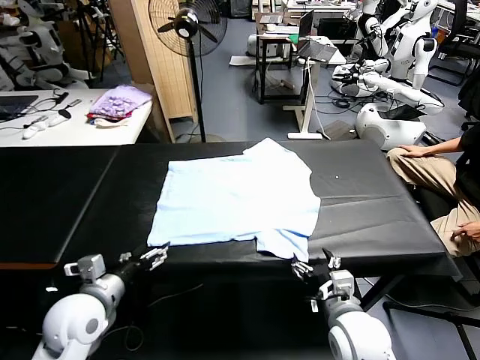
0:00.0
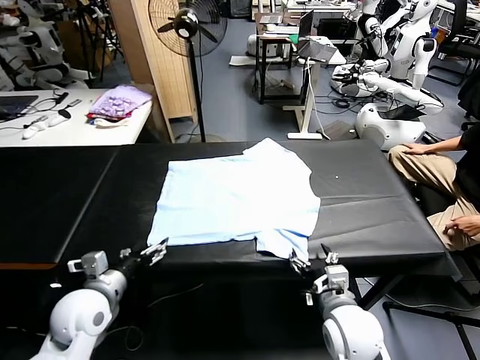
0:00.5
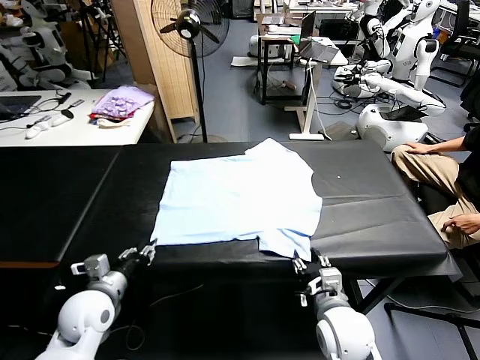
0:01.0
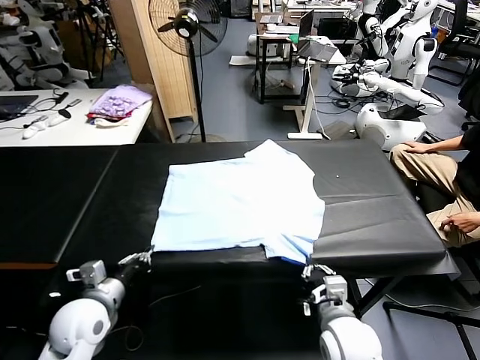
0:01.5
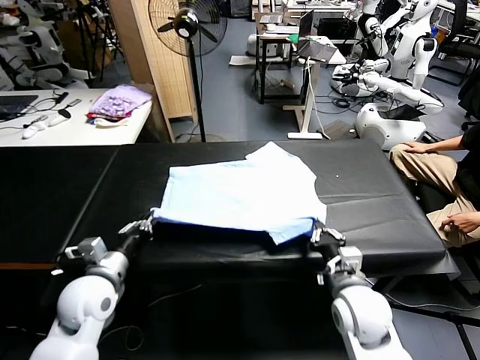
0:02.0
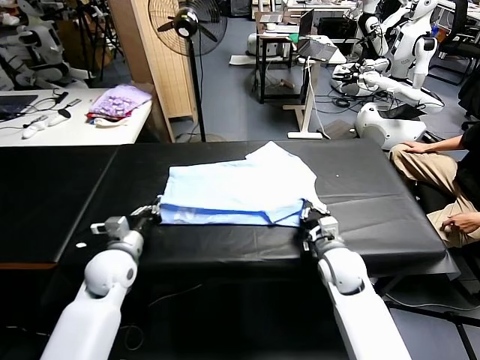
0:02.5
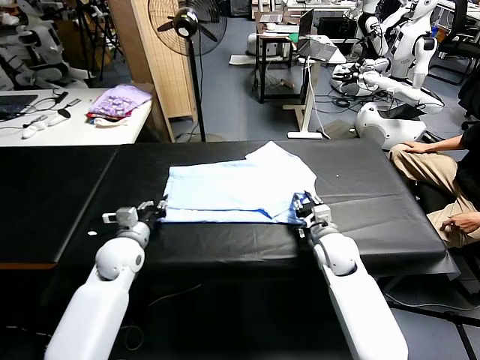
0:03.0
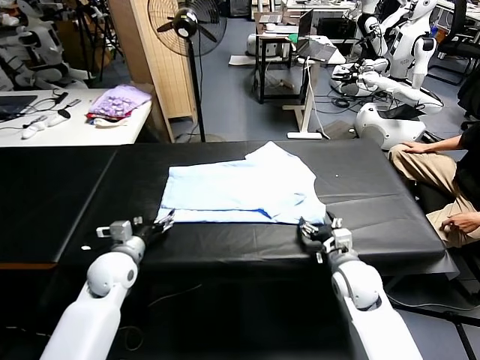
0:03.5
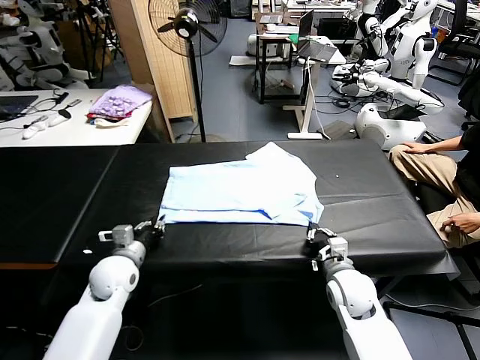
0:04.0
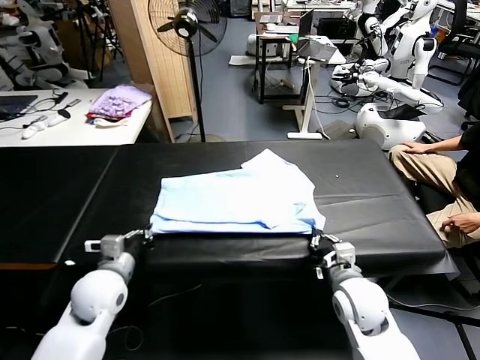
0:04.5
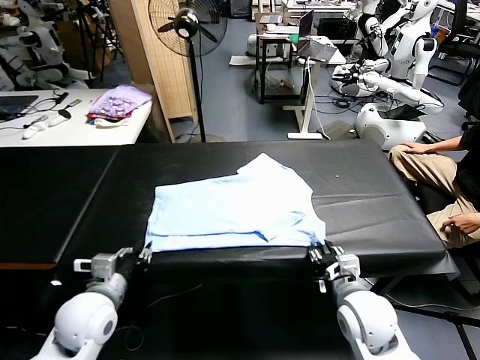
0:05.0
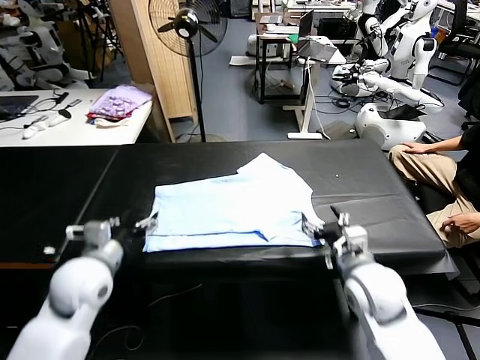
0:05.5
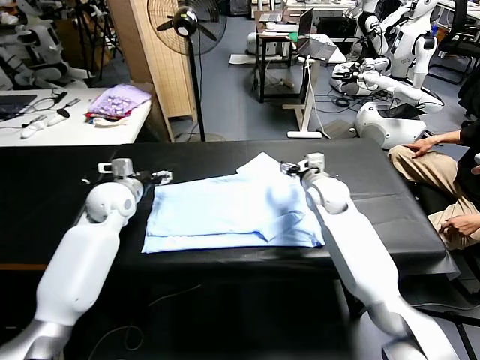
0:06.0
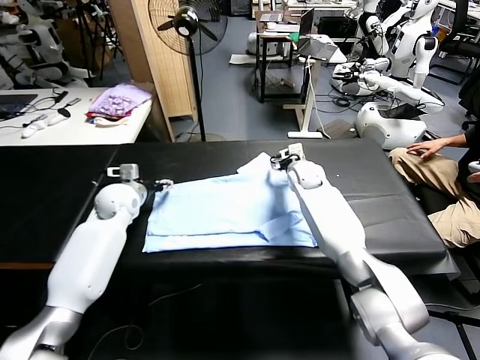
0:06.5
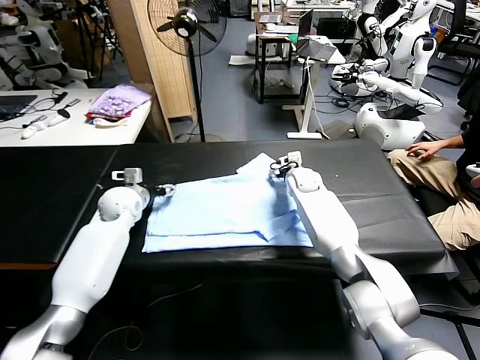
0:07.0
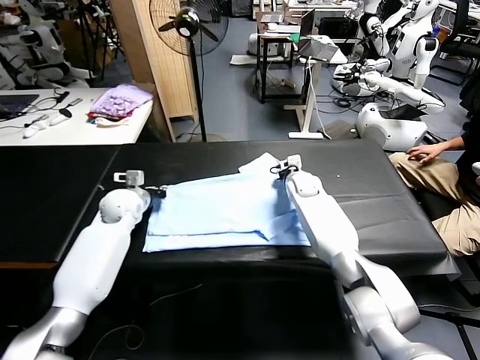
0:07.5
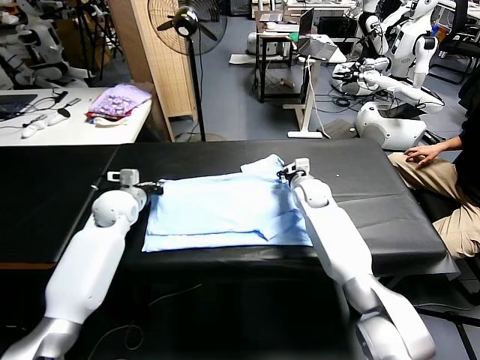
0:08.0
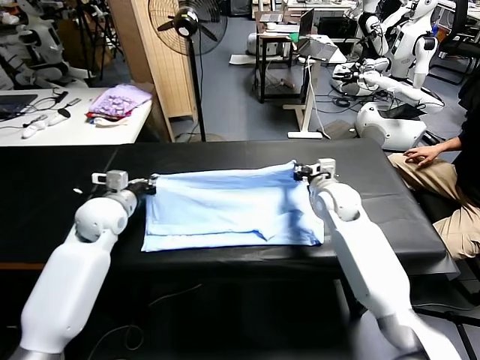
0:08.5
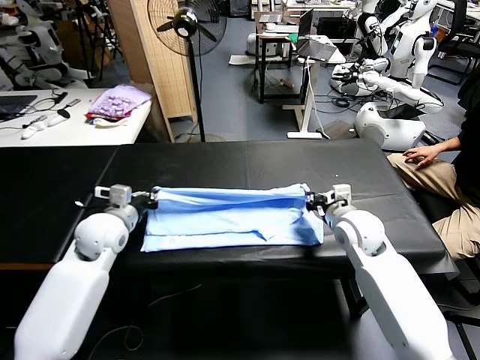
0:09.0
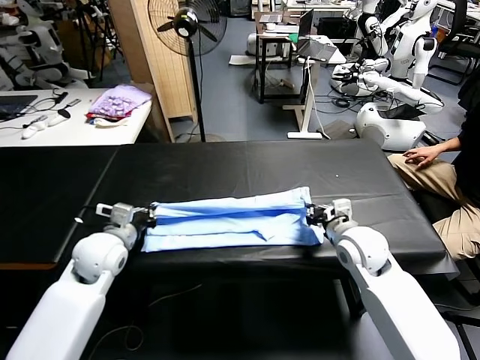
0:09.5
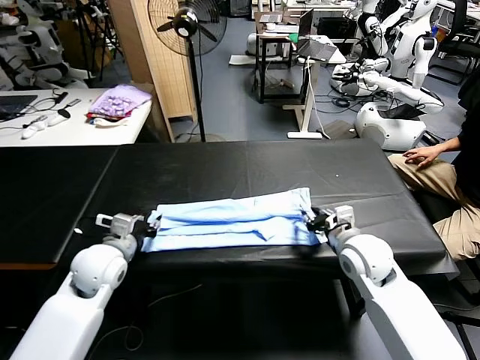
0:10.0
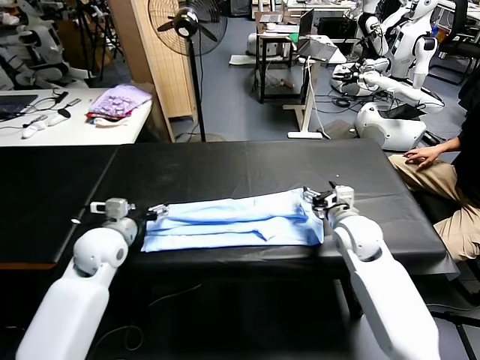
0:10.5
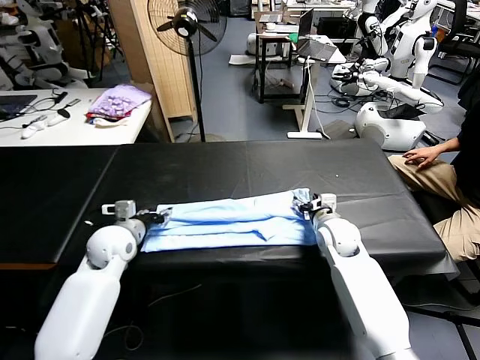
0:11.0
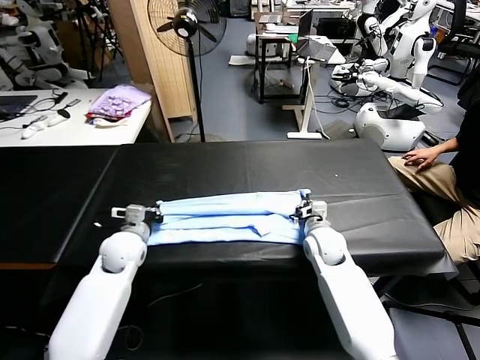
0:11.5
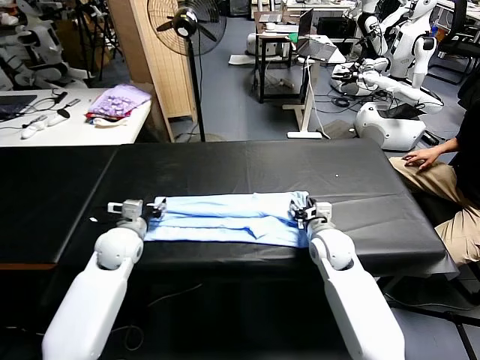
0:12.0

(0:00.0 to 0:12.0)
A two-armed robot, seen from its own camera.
Task of the whole recording: fold and organize the clothes.
Step, 0:00.0 - 0:01.0: use both grippers simultaneously to clamp the lower edge of the clothing fabric.
Step, 0:01.5 - 0:03.0: use both grippers to drag the lower edge of the fabric forward and fold it over the upper edge.
Step, 0:03.5 - 0:05.0: Drag the clothes downward with both gripper.
Step, 0:05.5 - 0:07.0: use both grippers simultaneously to clamp the upper edge of the clothing fabric.
Step, 0:07.5 - 0:09.5: use both grippers to drag the upper edge of the fabric backward and fold it over the lower edge.
0:02.0 - 0:04.0: The right gripper moves roughly 10 cm forward and comes back, and opens, then closes again. Meanwhile the left gripper heads downward, covering approximately 5 cm, and opens, then closes again.
0:04.0 - 0:06.0: The right gripper is displaced forward by roughly 25 cm, and opens its fingers, while the left gripper shifts some 20 cm forward and upward, and opens up.
0:06.0 - 0:08.0: The left gripper closes. The right gripper closes.
0:08.0 - 0:10.0: The grippers both shift backward by some 15 cm. The left gripper opens. The right gripper opens.
0:10.0 - 0:12.0: The right gripper heads downward, covering about 10 cm, and closes, then reopens. Meanwhile the left gripper is displaced forward by about 5 cm, and closes, then reopens.

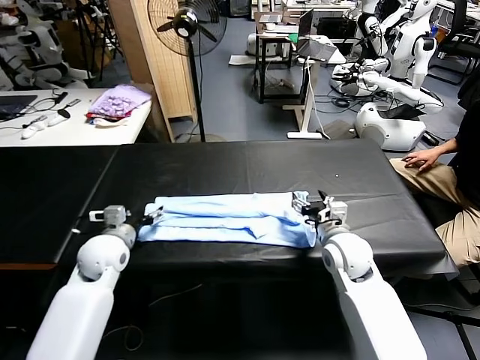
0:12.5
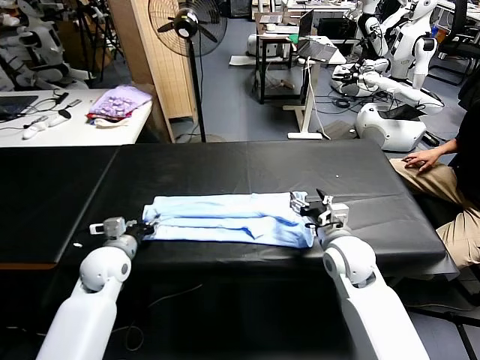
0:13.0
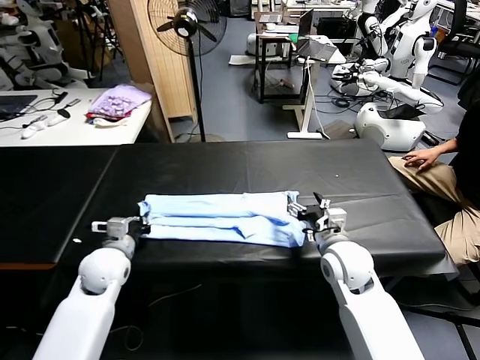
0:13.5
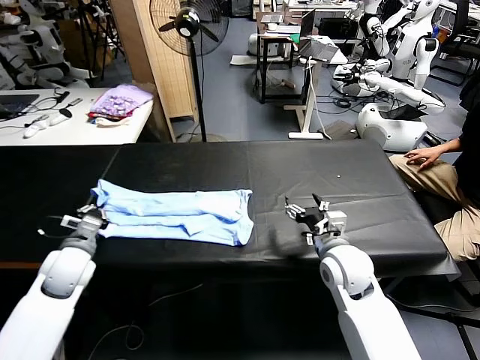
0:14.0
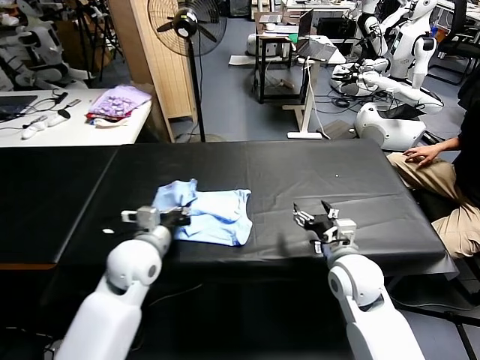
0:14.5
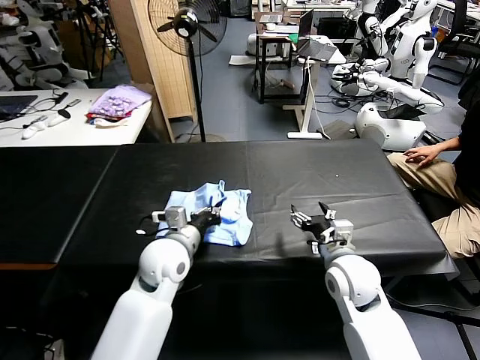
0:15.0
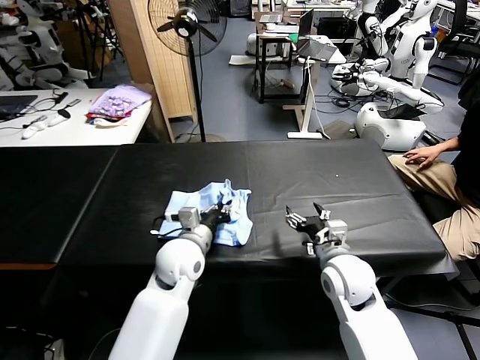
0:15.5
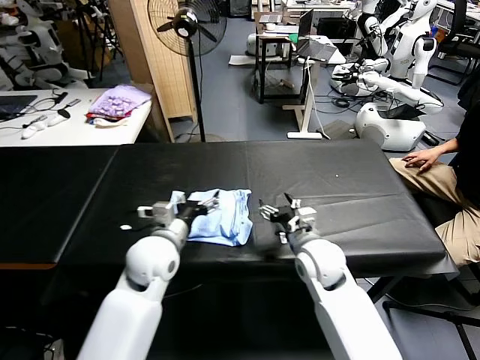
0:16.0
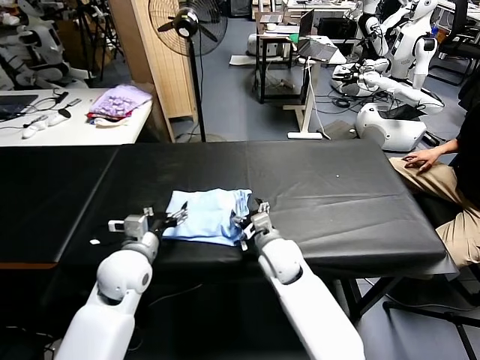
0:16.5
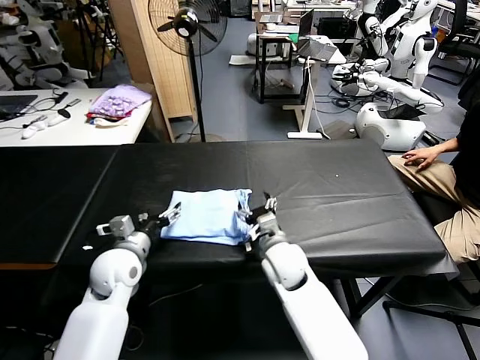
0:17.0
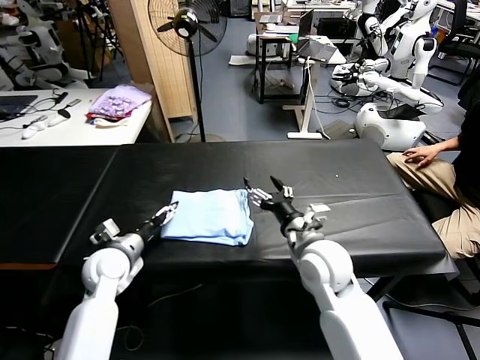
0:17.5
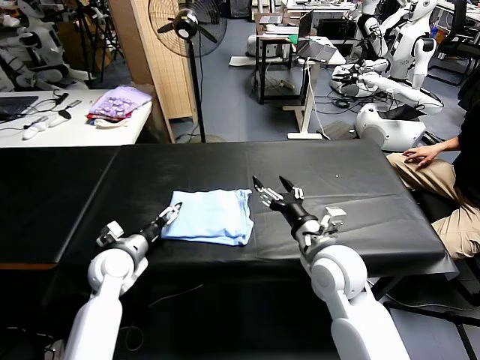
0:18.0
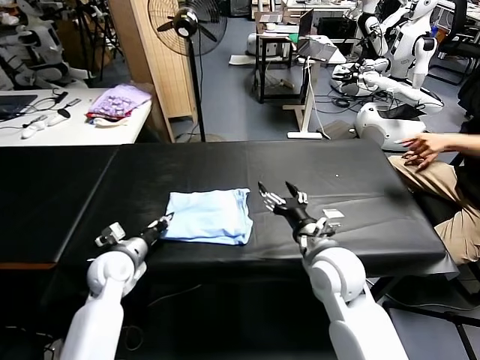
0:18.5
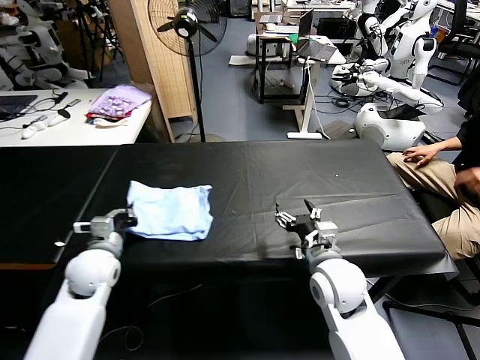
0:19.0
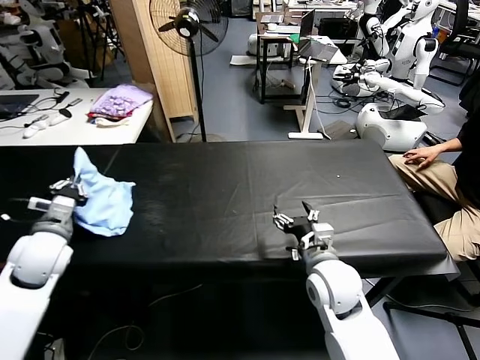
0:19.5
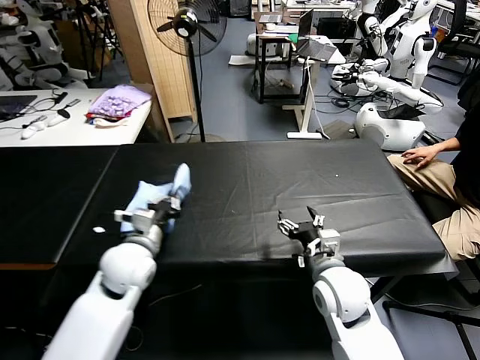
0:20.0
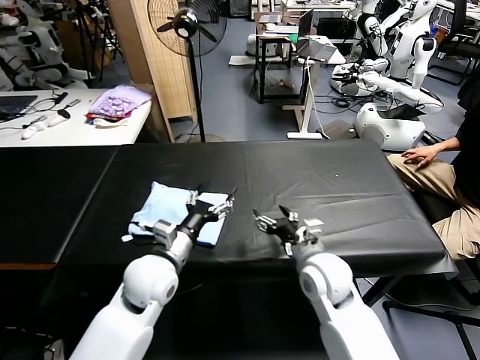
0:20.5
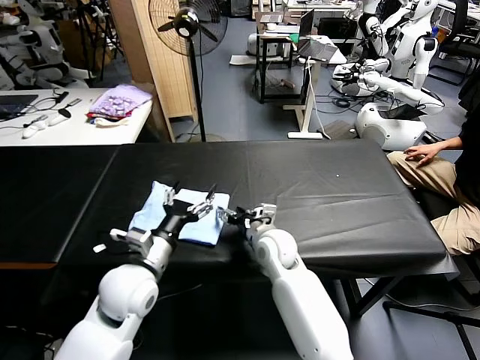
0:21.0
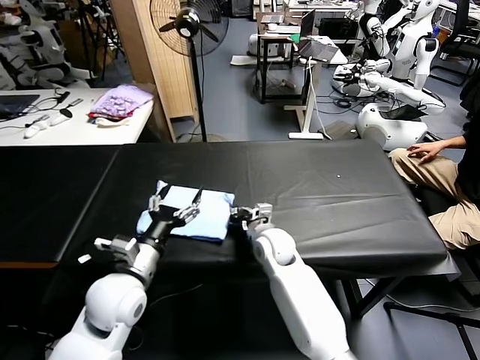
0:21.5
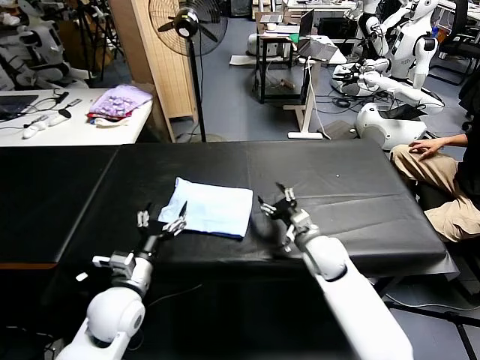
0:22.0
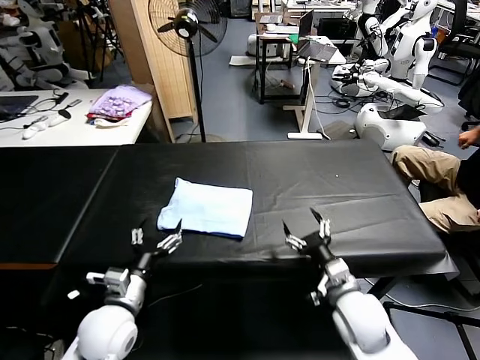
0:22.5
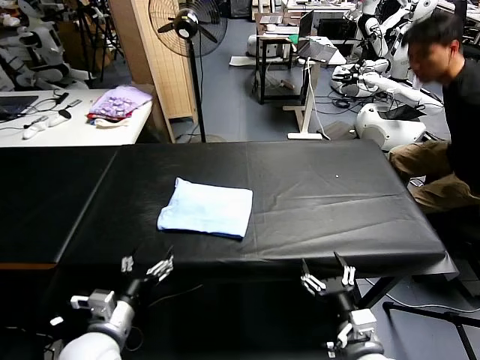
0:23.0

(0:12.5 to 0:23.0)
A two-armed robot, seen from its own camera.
Task of the whole recording: fold and organize the clothes.
Step, 0:13.5 - 0:15.5: use the left gripper to drag the left edge of the fabric to the left and folds it over the right edge.
Step, 0:16.0 - 0:20.0: Flip the folded clothes over with left gripper.
Step, 0:20.5 - 0:21.5: Drag the clothes to the center of the table.
0:12.5 - 0:14.5: The left gripper shifts approximately 10 cm to the right, and closes, while the right gripper travels backward by some 5 cm.
0:14.5 - 0:16.5: The left gripper goes to the right and returns, roughly 10 cm each way, and opens up. Meanwhile the right gripper travels to the left, forward and downward by roughly 15 cm.
0:16.5 - 0:19.0: The right gripper shifts roughly 15 cm to the right, backward and upward; the left gripper moves to the left, roughly 10 cm, and closes.
0:19.0 - 0:21.0: The left gripper shifts about 15 cm to the right, backward and upward, and opens, while the right gripper shifts some 15 cm to the left, forward and downward.
0:21.0 - 0:23.0: The left gripper heads backward, downward and to the left, covering approximately 15 cm. The right gripper moves backward and to the right, roughly 30 cm, and closes and opens again.

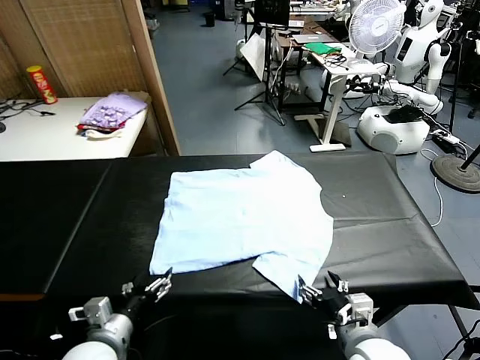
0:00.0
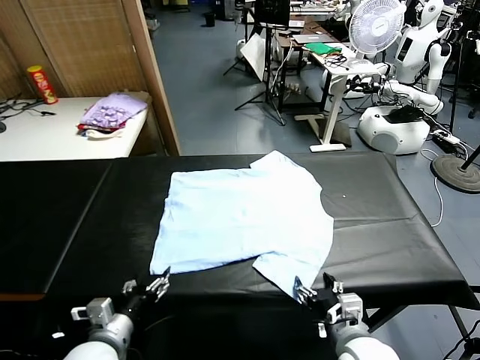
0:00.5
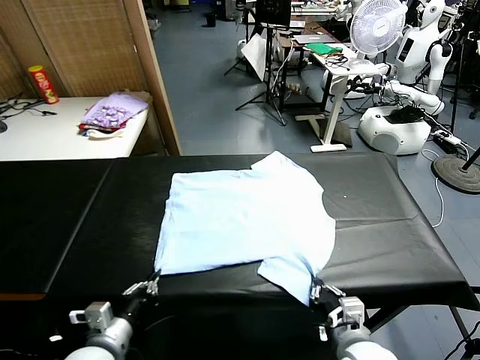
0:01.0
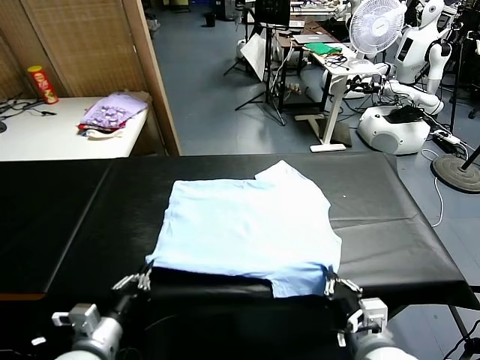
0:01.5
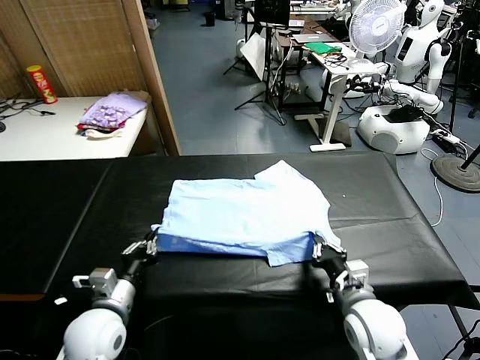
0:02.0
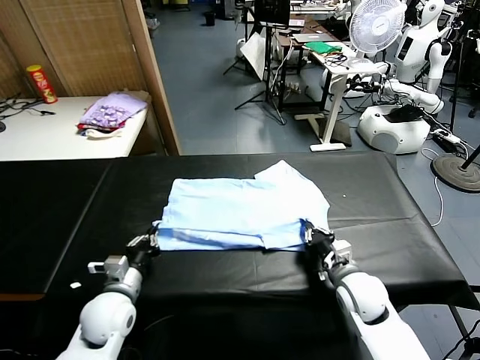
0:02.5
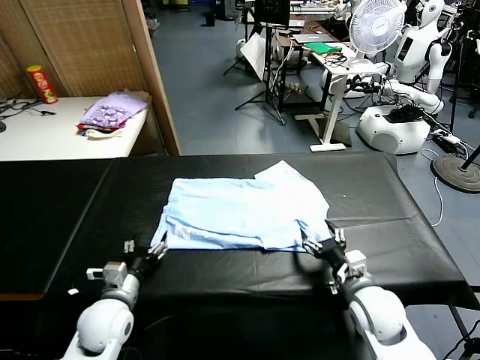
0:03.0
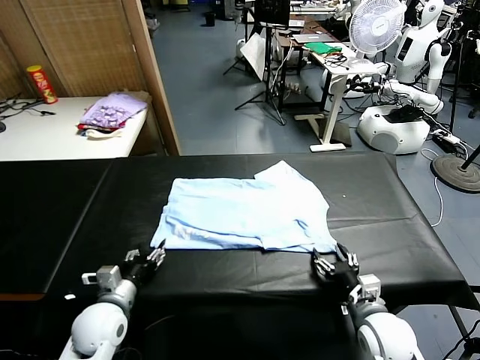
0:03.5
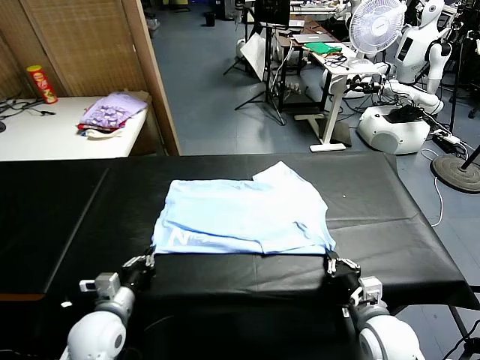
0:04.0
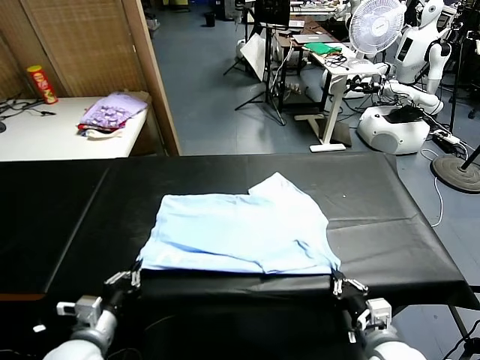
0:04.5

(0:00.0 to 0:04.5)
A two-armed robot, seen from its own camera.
Task of the whole recording: fold and organize the clothes.
Step, 0:00.0 - 0:00.5: use both grippers simultaneously to clamp the lower edge of the clothing fabric.
Step, 0:01.5 - 0:02.5: use both grippers to drag the lower edge of the fabric forward and fold it over the upper edge.
0:02.0 - 0:04.5: The right gripper moves backward, about 15 cm, and opens, then closes once more. Meanwhile the left gripper travels backward by roughly 10 cm, and opens, then closes once more.
